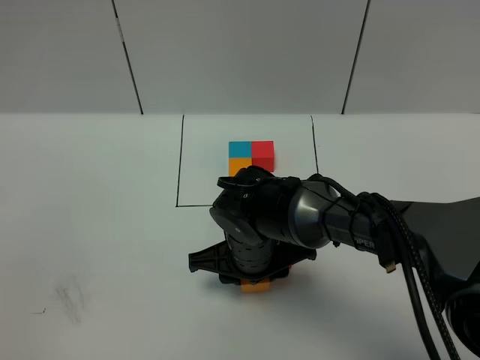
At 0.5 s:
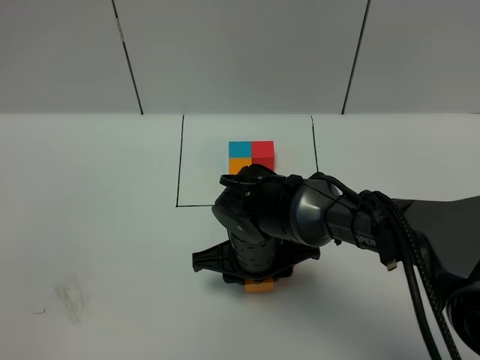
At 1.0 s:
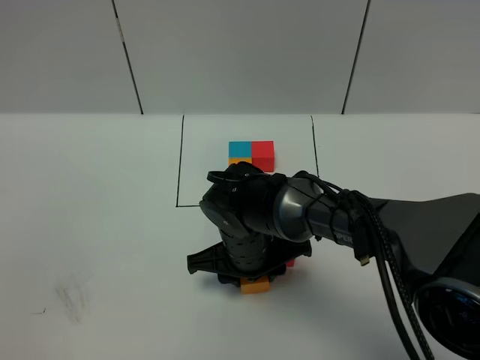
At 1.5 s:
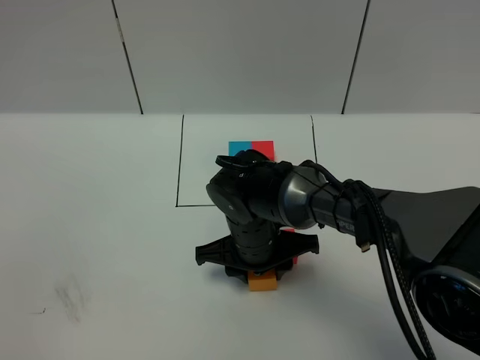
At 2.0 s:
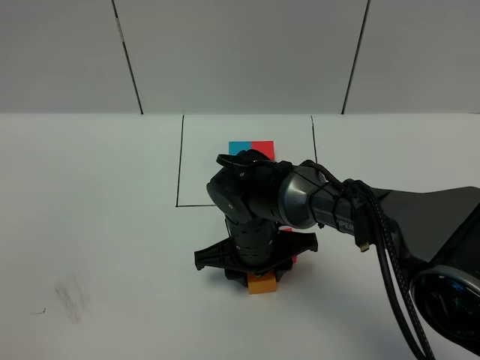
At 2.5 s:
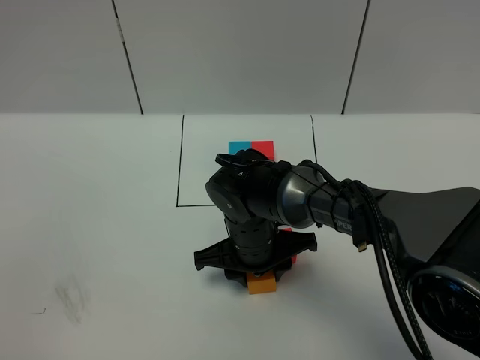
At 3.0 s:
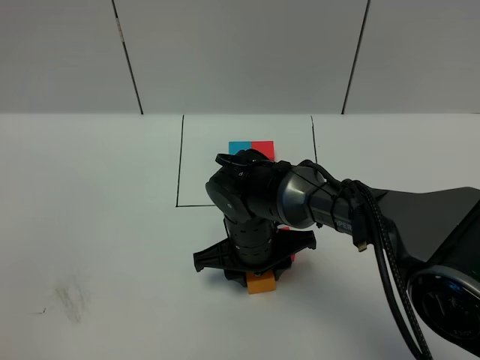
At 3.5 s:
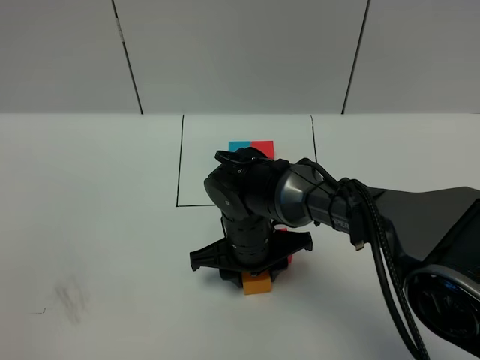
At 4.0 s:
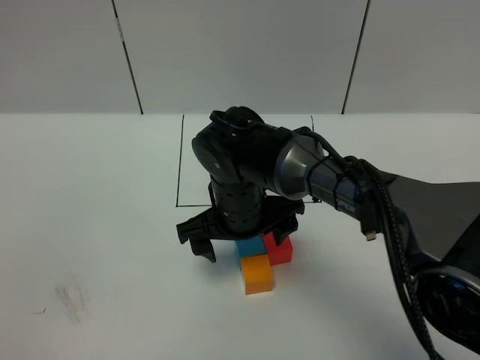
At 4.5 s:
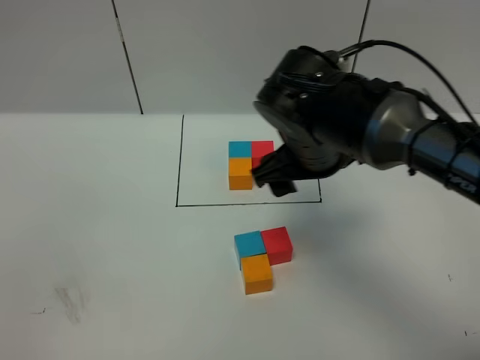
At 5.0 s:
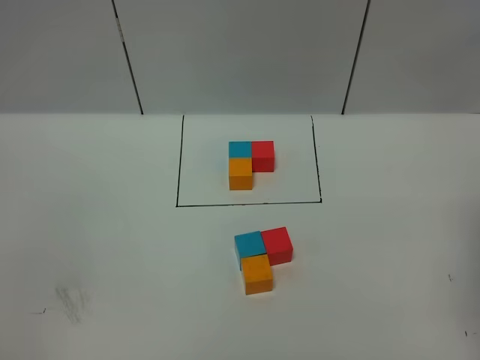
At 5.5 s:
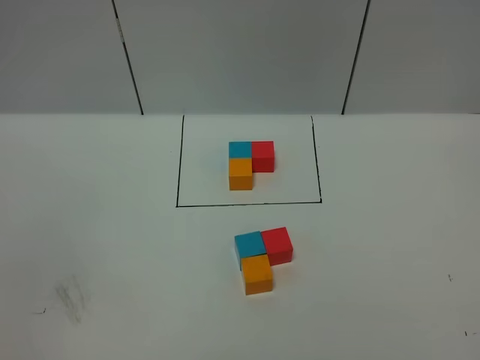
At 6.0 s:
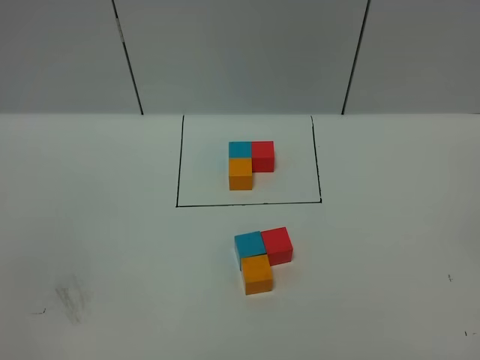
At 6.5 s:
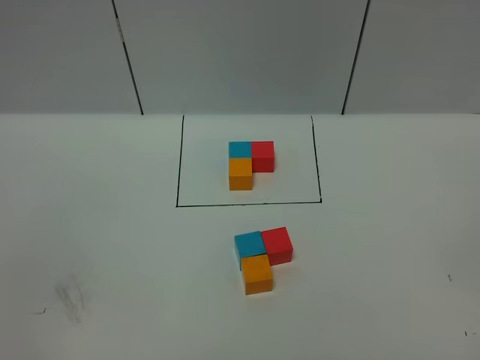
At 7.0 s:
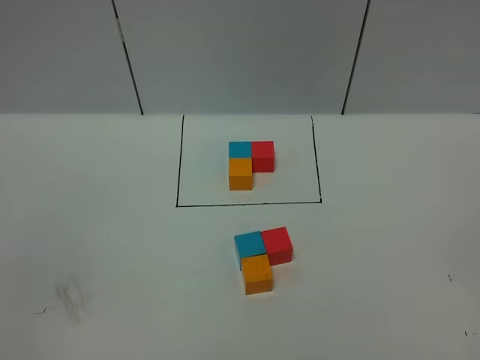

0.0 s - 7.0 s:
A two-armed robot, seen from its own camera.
Task of the whole recording: According to the building block template in front, assemble the scattered blocks together.
Step, 0.0 s - 4.0 s: Put the orange cube in the front of the blue cube.
0.0 s - 2.0 s: The grippers make only small movements.
2.0 s - 3.5 s: The two grippers keep their place.
3.5 s - 5.0 s: The right gripper moves to the right and upward, roughly 40 cm, and opens its fingers.
